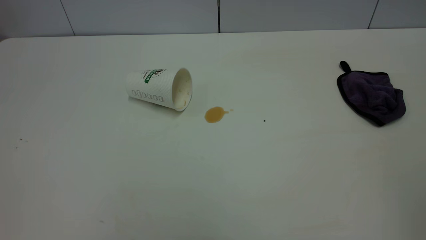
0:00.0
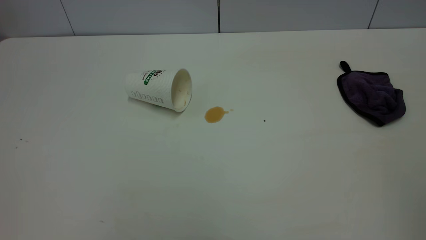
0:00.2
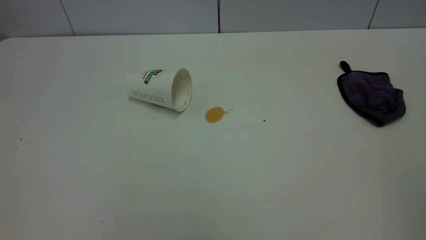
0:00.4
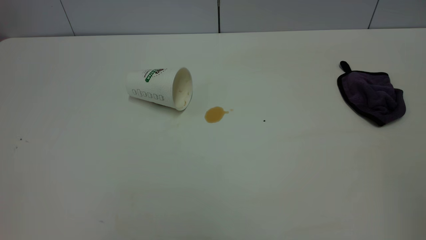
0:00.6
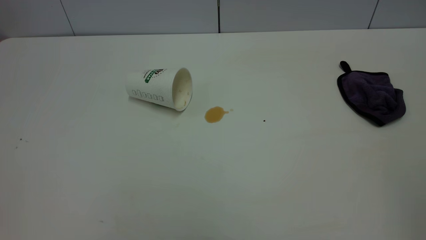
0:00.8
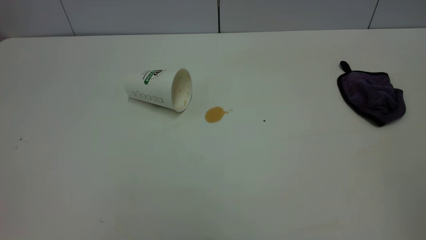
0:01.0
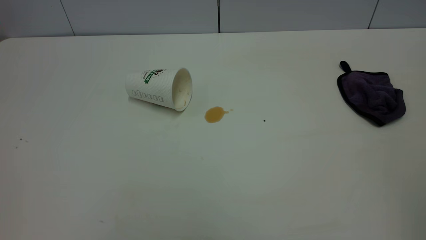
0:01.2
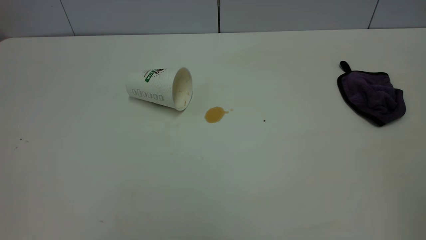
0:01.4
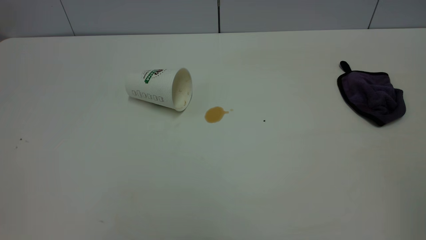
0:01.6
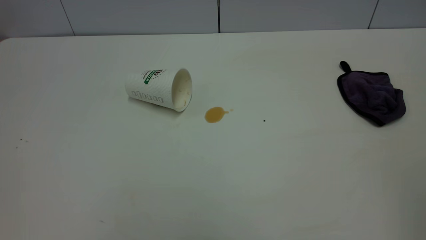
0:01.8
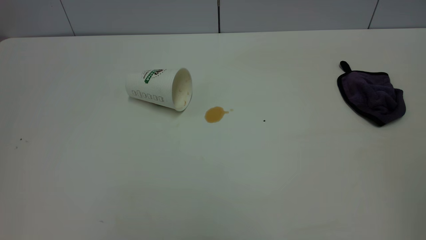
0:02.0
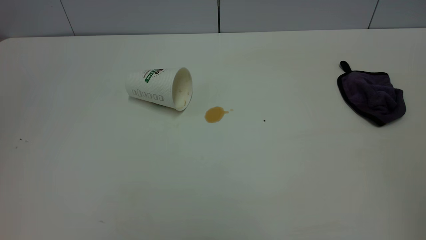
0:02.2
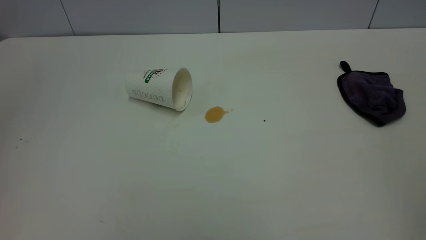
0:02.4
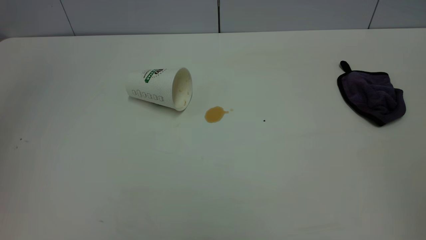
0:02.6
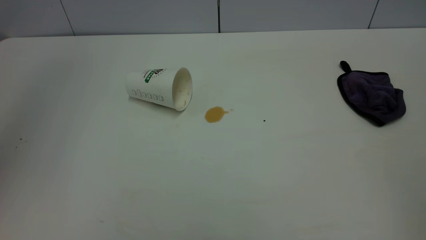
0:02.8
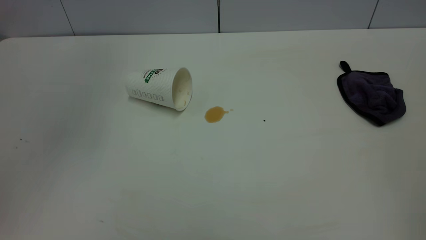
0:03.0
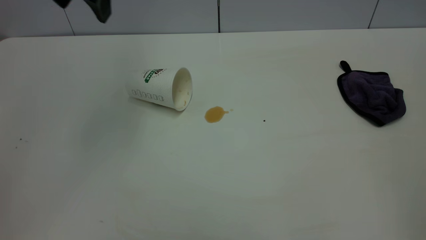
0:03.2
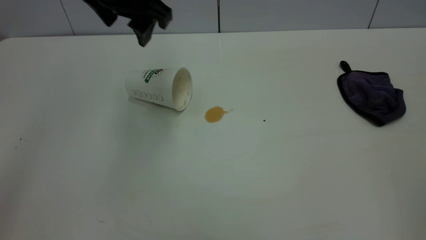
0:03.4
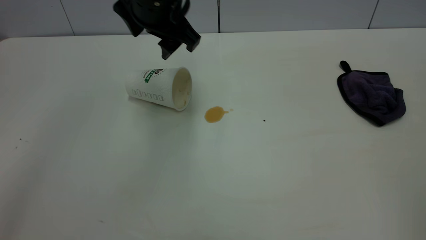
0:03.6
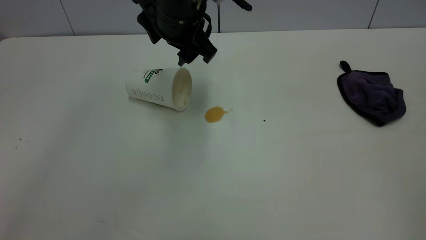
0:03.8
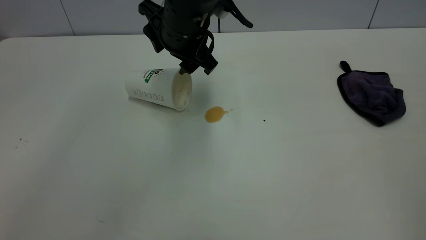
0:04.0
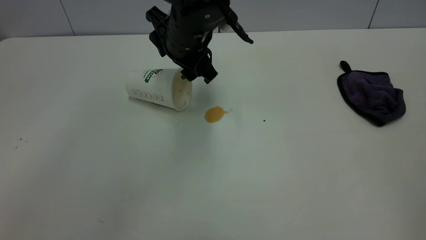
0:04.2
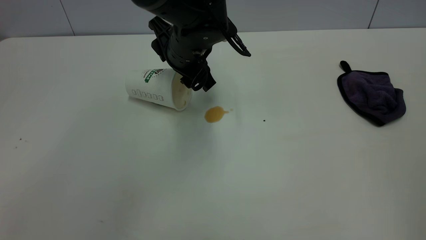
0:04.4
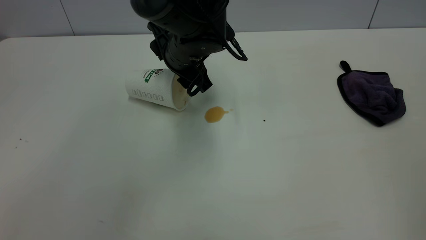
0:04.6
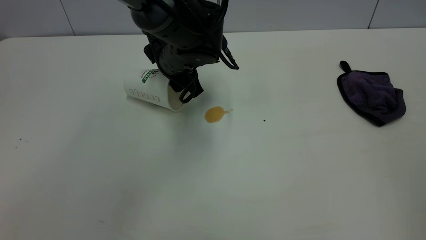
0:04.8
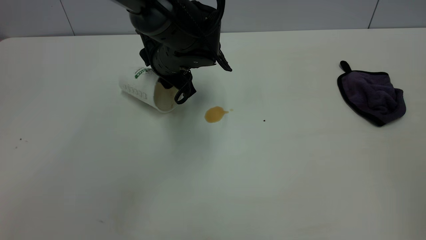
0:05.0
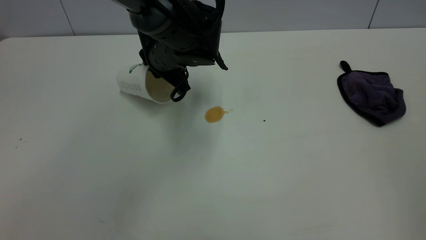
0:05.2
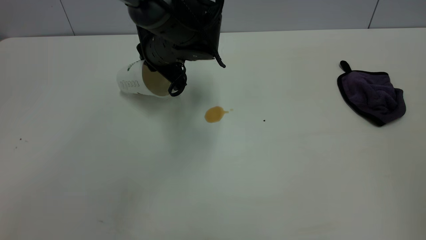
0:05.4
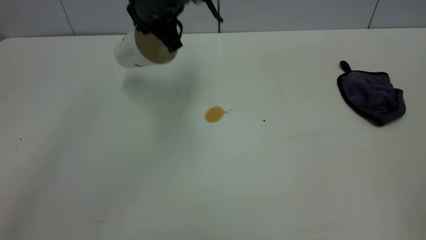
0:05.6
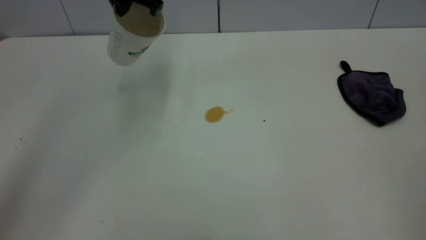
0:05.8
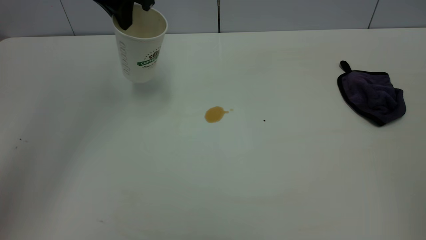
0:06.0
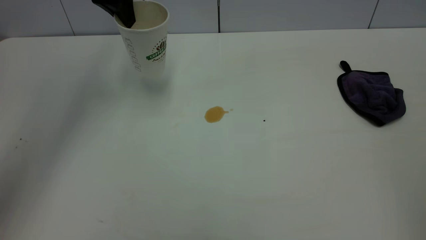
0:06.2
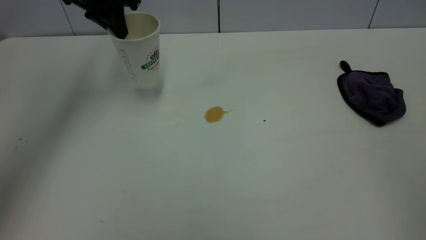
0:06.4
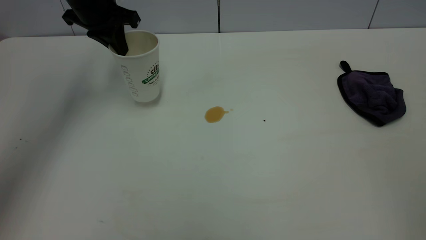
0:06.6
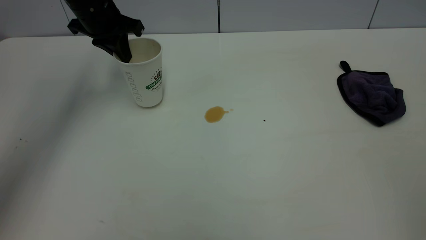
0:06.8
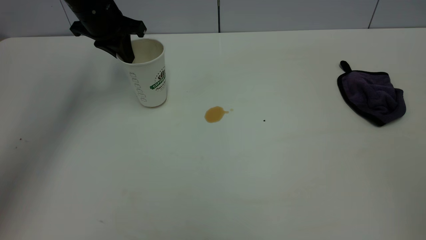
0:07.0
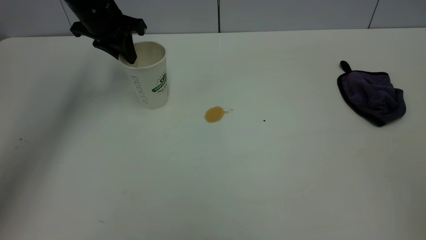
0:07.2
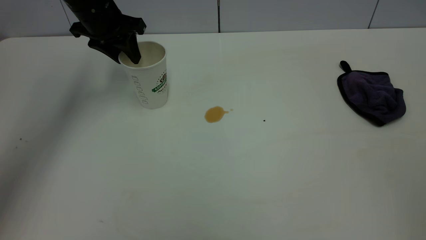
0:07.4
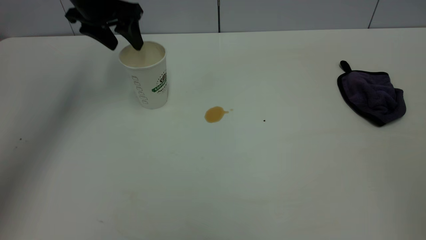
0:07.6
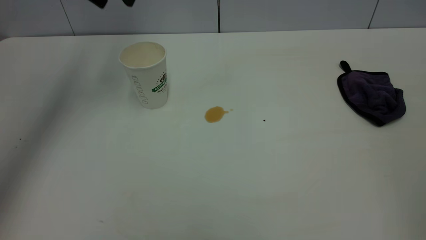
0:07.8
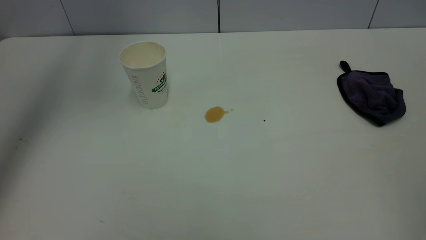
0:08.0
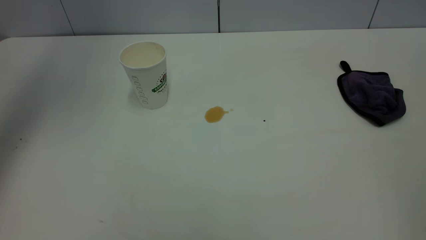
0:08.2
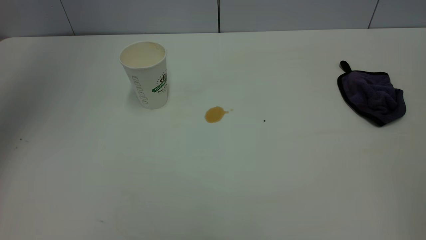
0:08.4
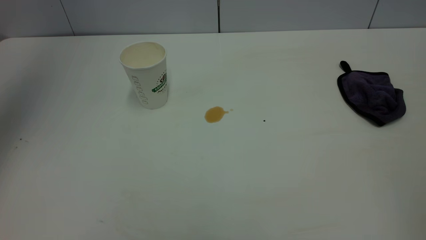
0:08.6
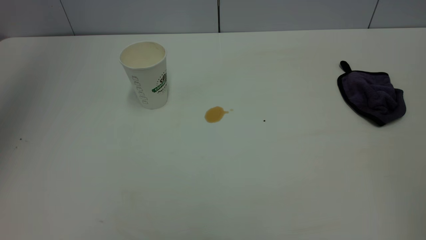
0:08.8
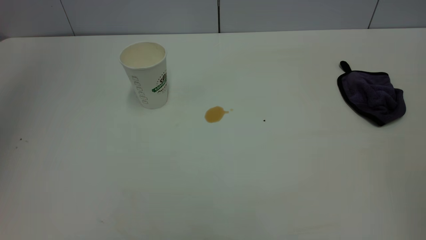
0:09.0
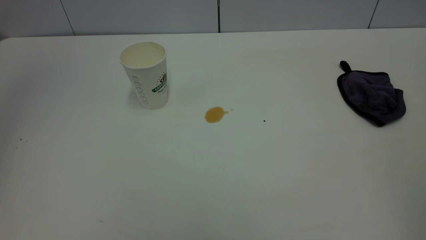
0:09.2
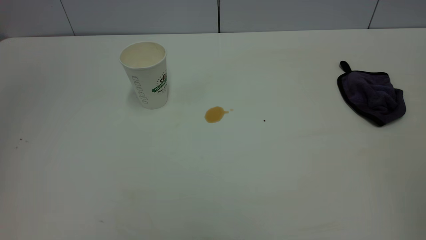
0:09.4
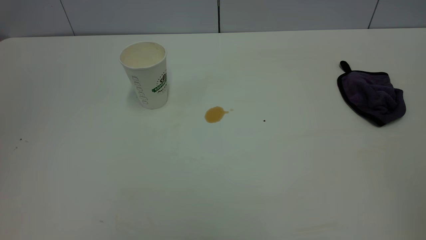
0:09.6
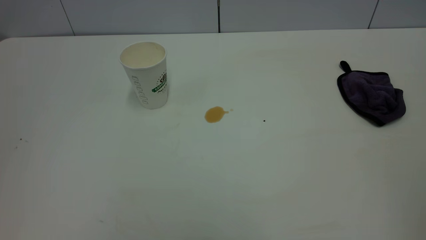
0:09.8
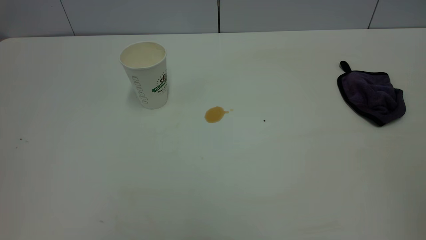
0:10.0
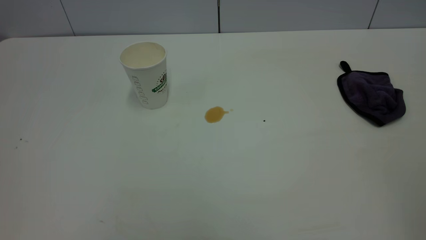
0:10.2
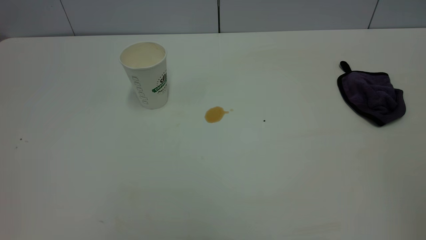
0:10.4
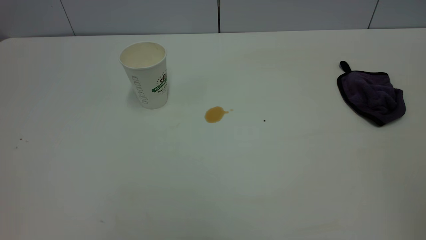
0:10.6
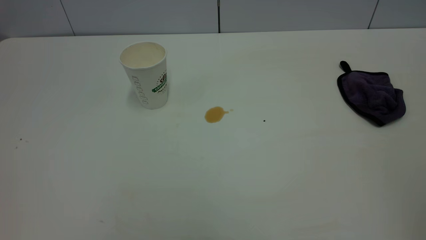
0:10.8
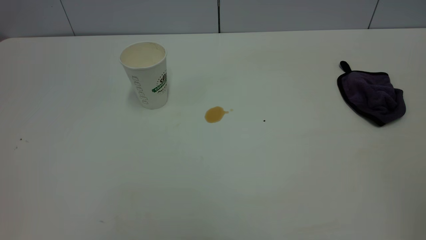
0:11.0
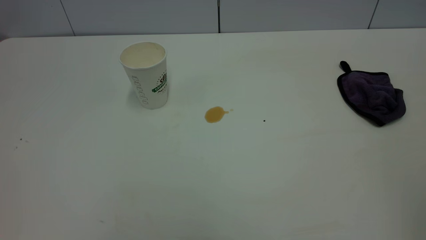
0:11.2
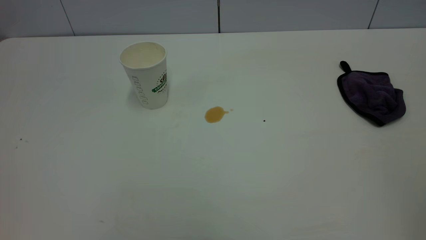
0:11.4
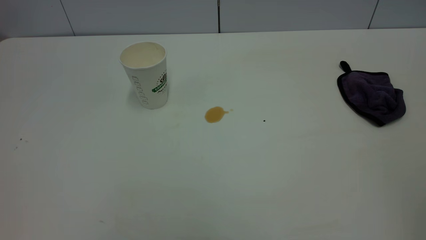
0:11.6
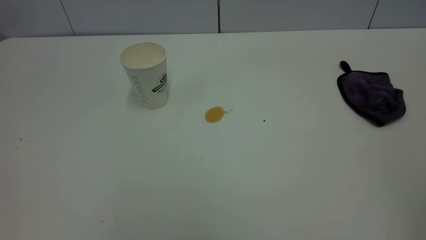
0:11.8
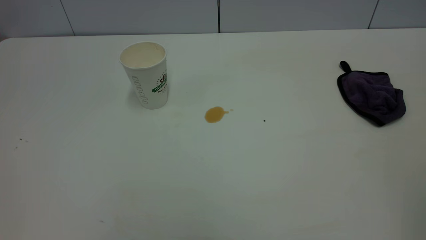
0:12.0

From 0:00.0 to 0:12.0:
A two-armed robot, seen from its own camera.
Task of the whole recording: the left gripper pick up the fallen cup and place it upright, the right gripper grasp the purple rag and wipe the tea stain on the table, the right gripper put the purple rag back in its original position.
Step, from 0:00.0 to 0:07.6: Stand the paper cup upright.
From 0:00.0 to 0:01.6: The two grippers keep their place.
From 0:03.0 to 0:04.4: The left gripper goes some 30 cm downward and to the right.
From 0:04.4 to 0:06.0: The left gripper shifts roughly 20 cm upward, to the left and forward, and closes up.
From 0:06.0 to 0:07.6: The left gripper moves to the left, some 5 cm, and opens.
From 0:07.6 to 0:09.0: The left gripper moves upward and backward, roughly 30 cm.
From 0:10.4 to 0:12.0: Both grippers stay about where they are.

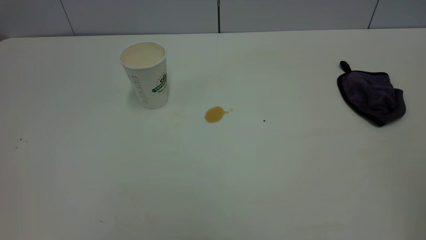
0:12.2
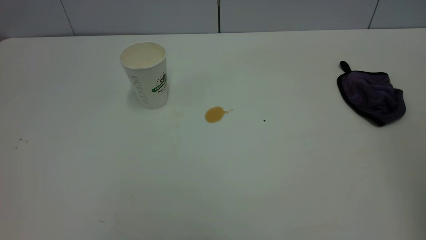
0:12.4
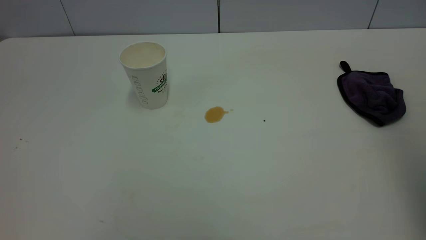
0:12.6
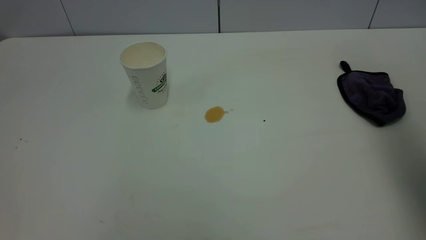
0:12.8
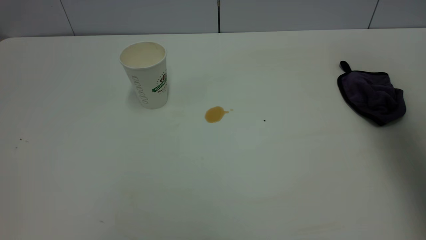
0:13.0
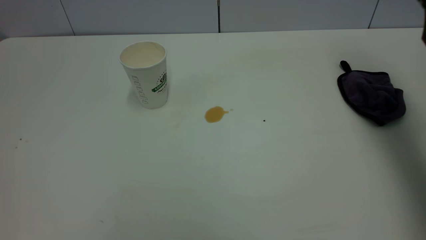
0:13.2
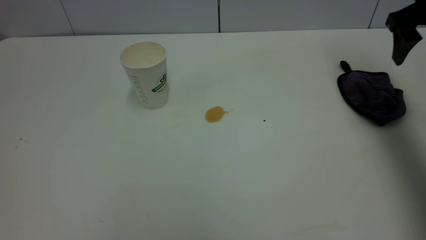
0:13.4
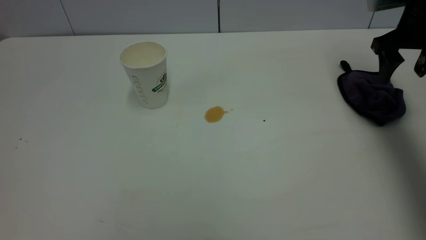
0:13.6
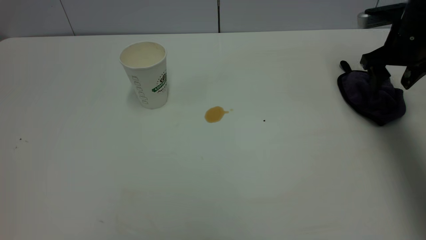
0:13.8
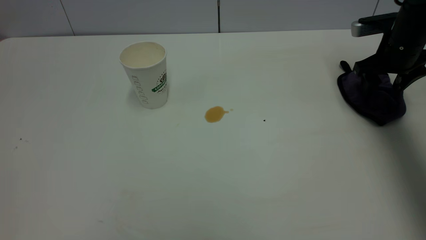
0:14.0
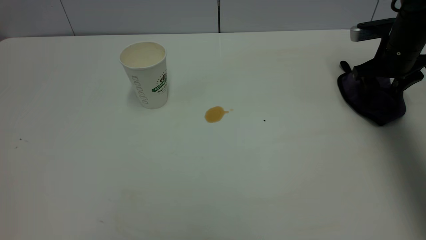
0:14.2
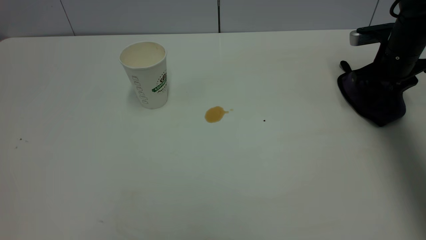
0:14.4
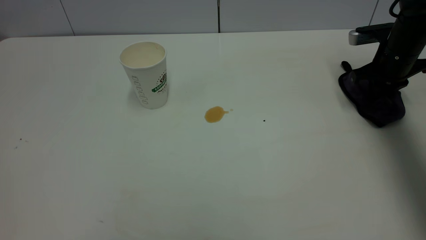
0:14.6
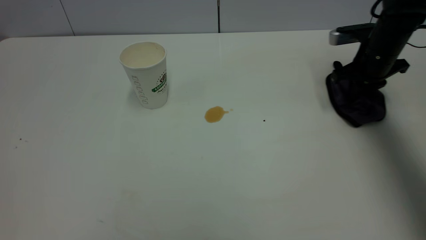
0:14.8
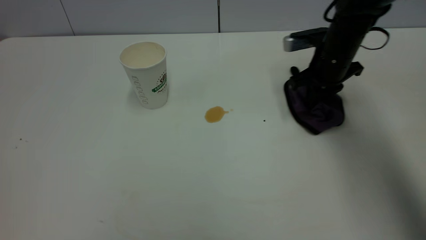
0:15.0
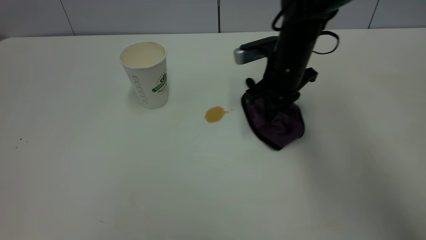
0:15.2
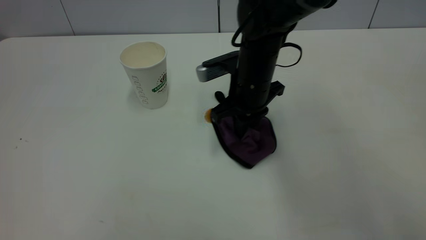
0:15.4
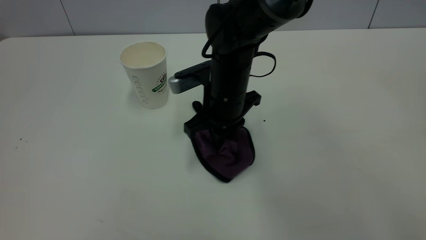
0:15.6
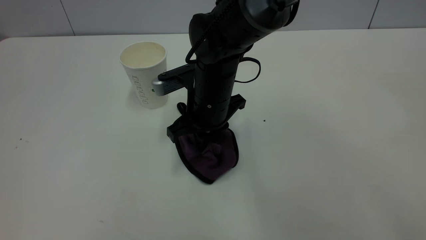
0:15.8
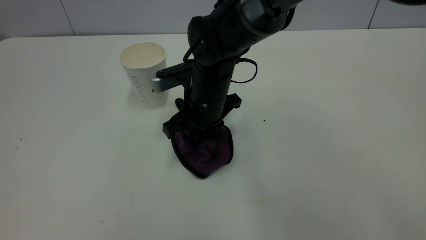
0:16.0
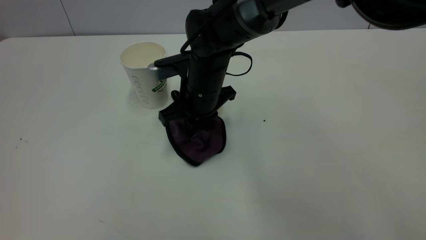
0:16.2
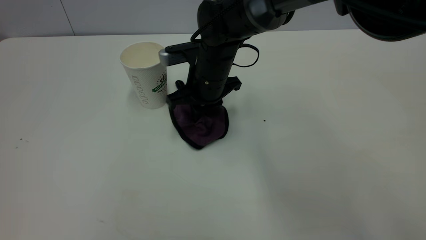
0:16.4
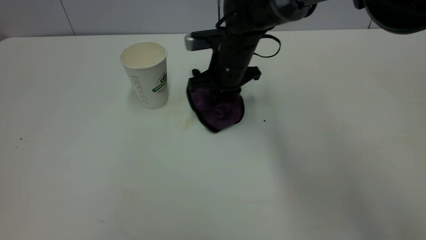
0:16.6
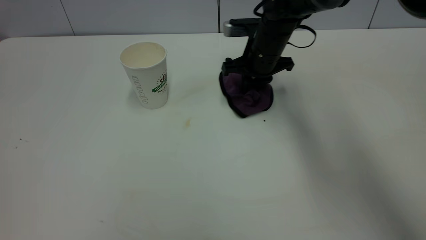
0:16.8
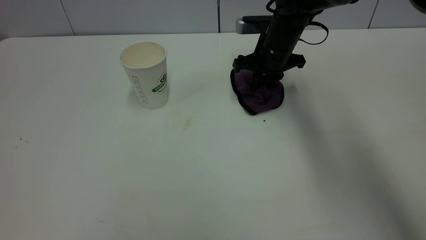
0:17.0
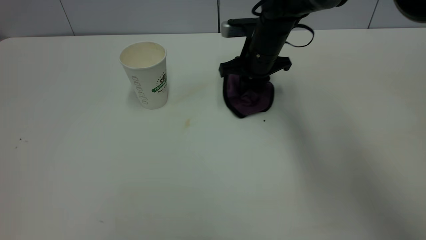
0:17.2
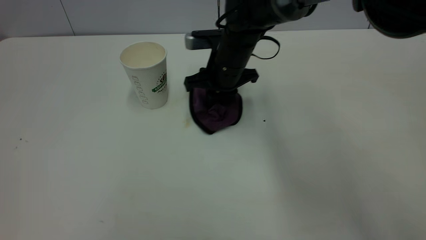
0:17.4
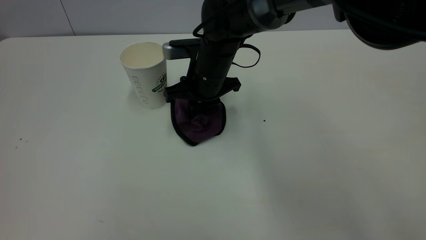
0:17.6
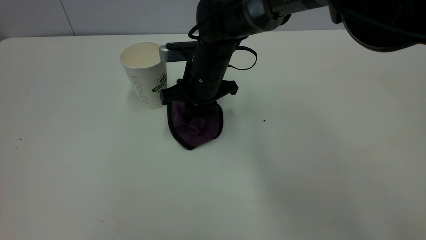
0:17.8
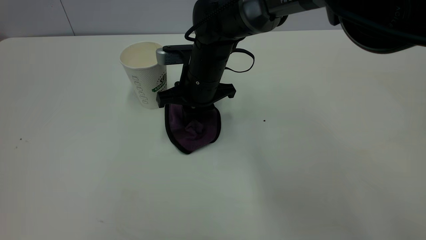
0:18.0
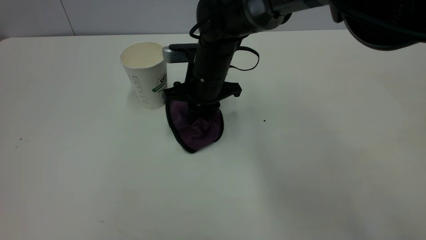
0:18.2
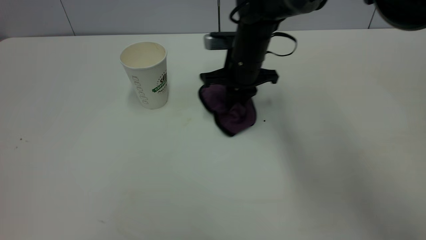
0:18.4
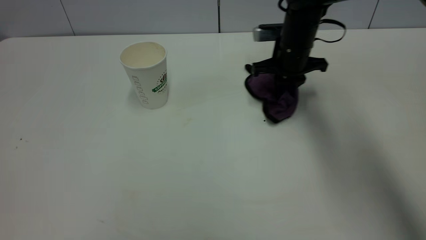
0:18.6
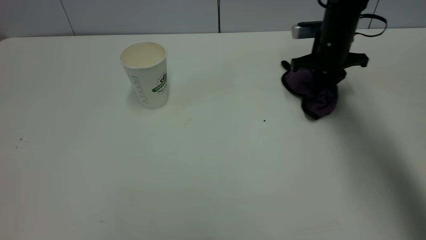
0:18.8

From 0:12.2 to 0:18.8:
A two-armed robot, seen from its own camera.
Task of the whole recording: the left gripper pick up the fallen cup and place it upright, the right gripper grasp the purple rag and wipe the tea stain on the table, the right gripper put the purple rag back in its original position.
From 0:12.2 to 0:13.8: The right gripper shifts about 50 cm forward and downward, and opens.
From 0:13.8 to 0:15.4: The right gripper shifts approximately 25 cm to the left, and closes up.
From 0:15.4 to 0:17.2: The right gripper moves forward, some 10 cm.
From 0:17.2 to 0:18.8: The right gripper is displaced to the right by some 15 cm.
